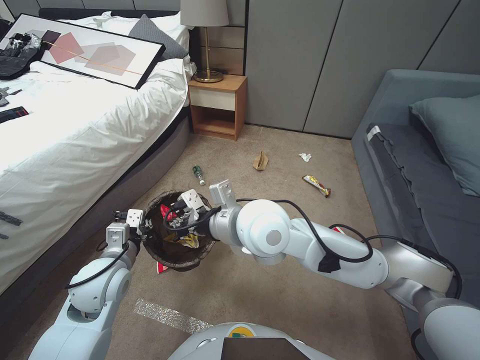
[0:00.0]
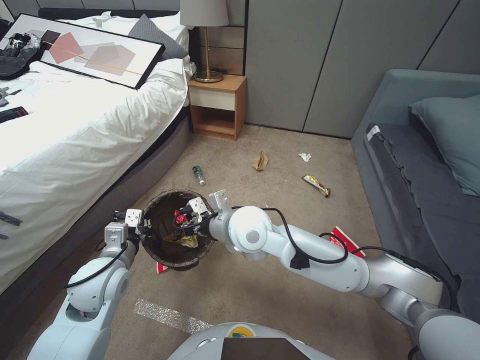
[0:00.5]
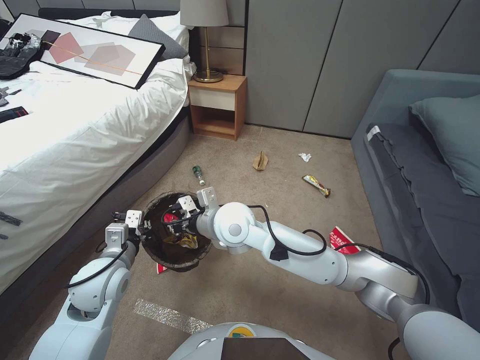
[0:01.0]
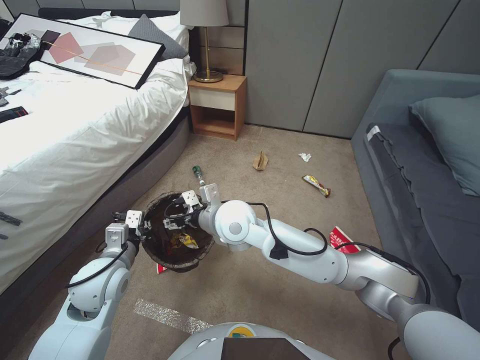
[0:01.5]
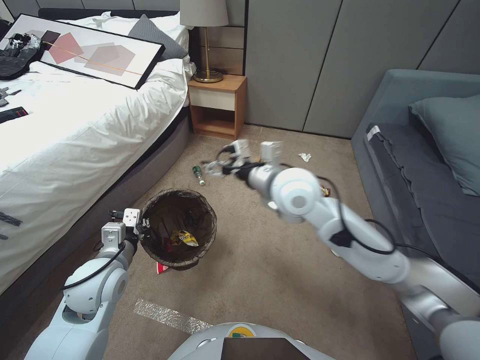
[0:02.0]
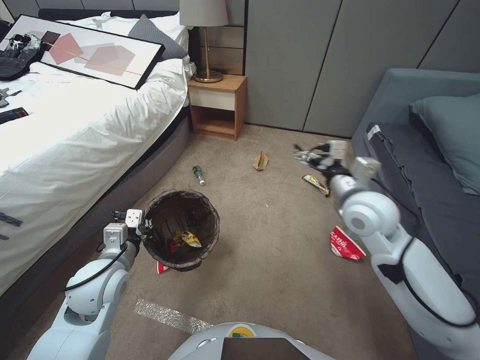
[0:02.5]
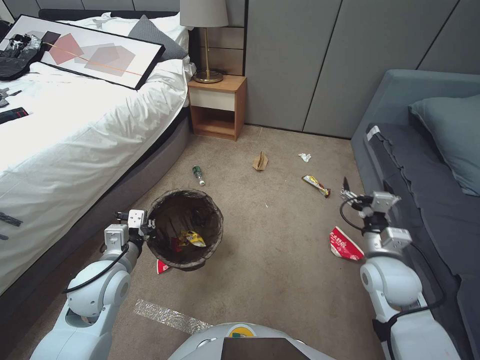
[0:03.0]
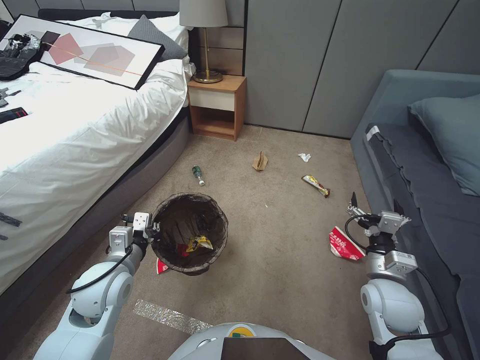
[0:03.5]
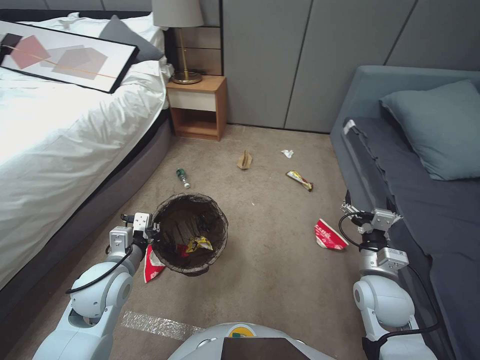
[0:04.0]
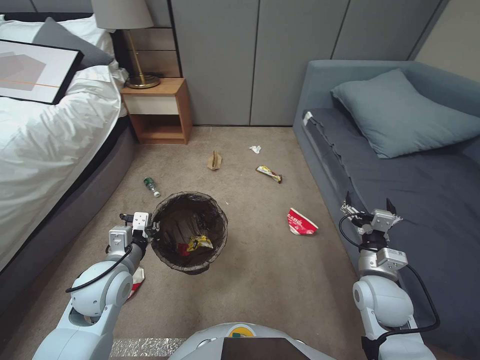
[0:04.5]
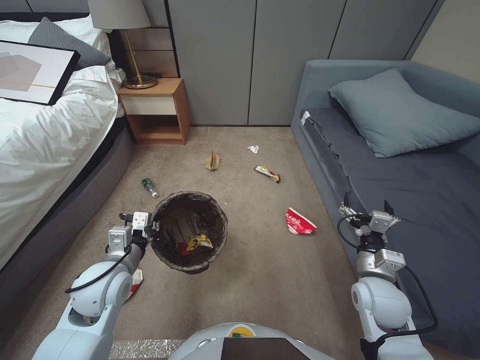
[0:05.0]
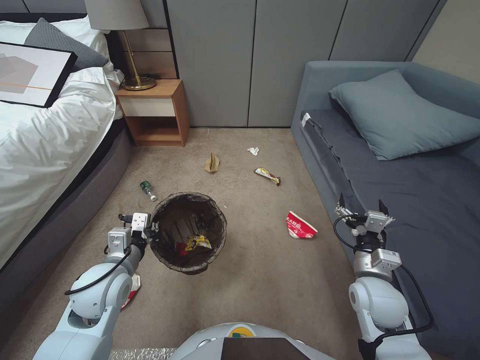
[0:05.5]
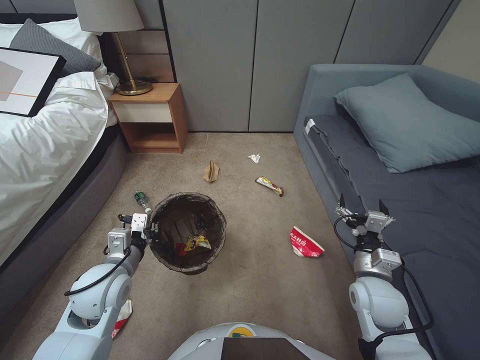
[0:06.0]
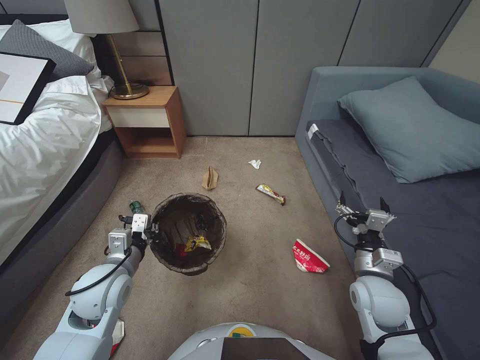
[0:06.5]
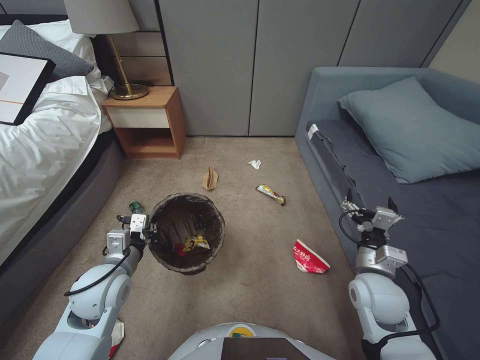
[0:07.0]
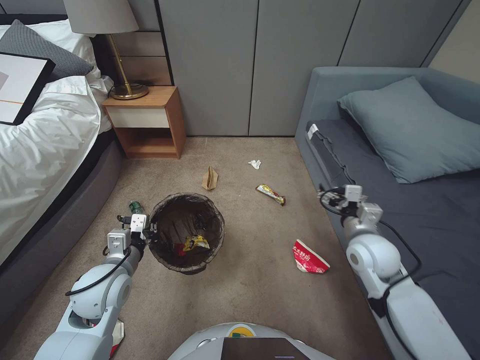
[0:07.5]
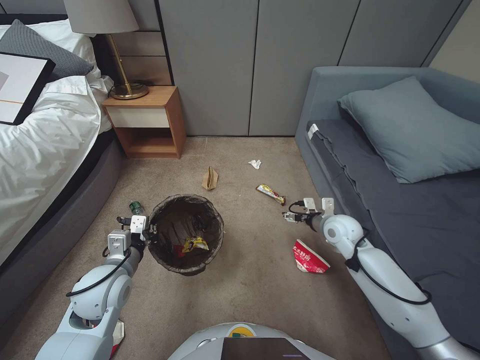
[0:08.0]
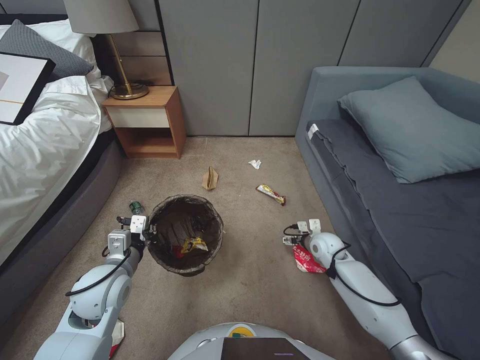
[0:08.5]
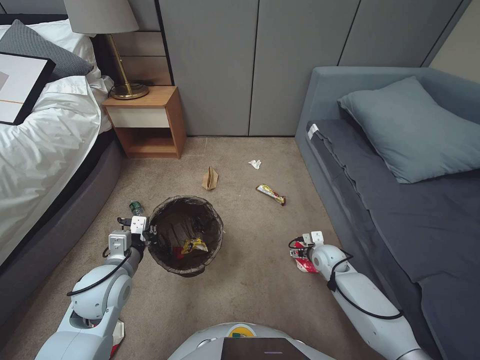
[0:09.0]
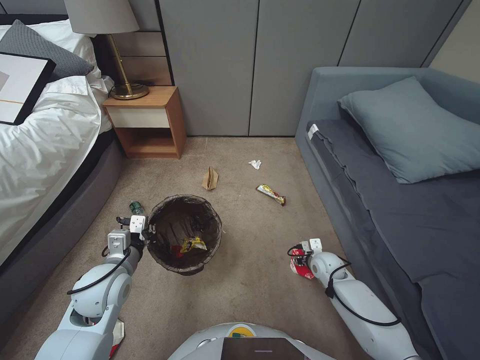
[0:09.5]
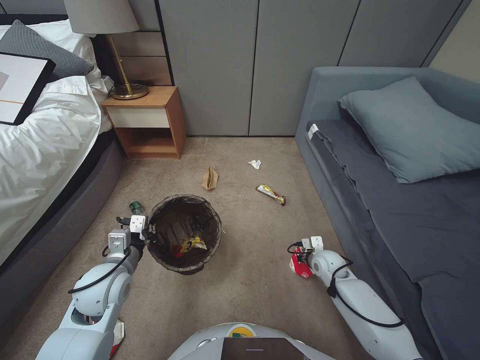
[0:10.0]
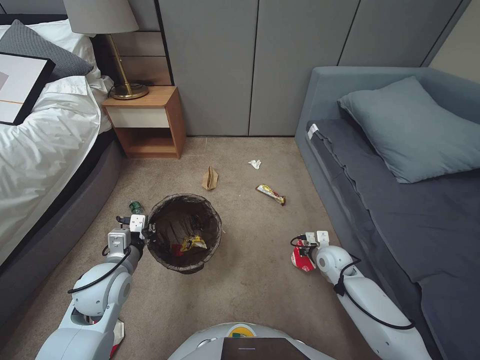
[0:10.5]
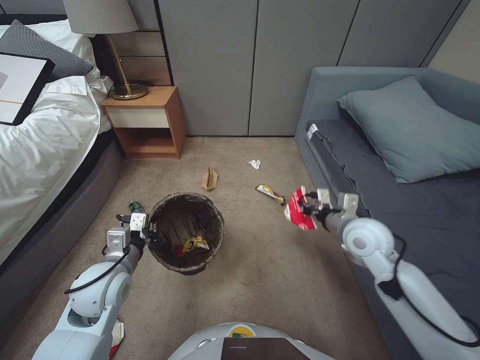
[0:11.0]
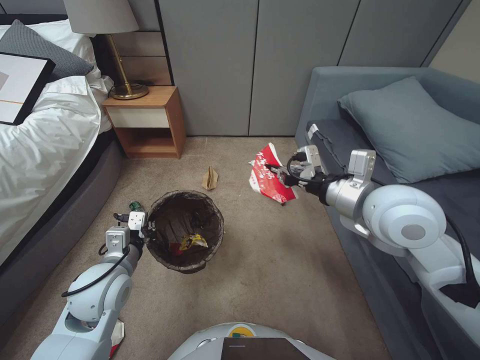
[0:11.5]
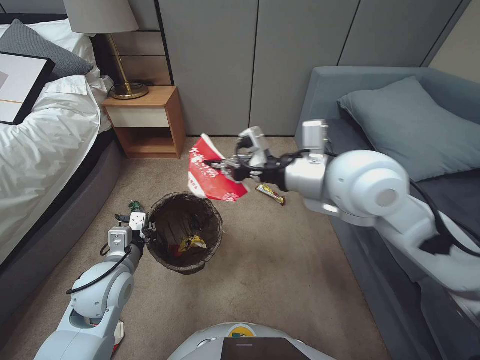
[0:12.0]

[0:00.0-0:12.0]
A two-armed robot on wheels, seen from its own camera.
Task of the whole recording: Pick up the trash bin, then pick up the garbage from the floor and place it into the trash bin.
0:00.0 to 0:02.0: The right gripper is displaced forward by some 5 cm, and opens.
0:02.0 to 0:04.0: The right gripper travels to the right, downward and backward by roughly 35 cm.
0:06.0 to 0:08.0: The right gripper is displaced forward by approximately 15 cm.
0:08.0 to 0:10.0: The right gripper travels downward by some 15 cm, and closes its fingers.
0:10.0 to 0:12.0: The right gripper heads upward, covering some 40 cm.

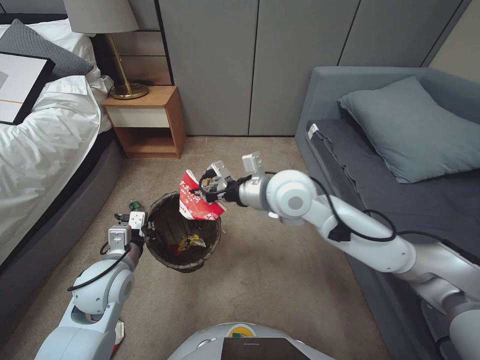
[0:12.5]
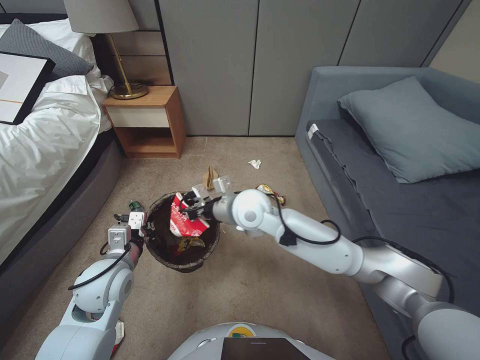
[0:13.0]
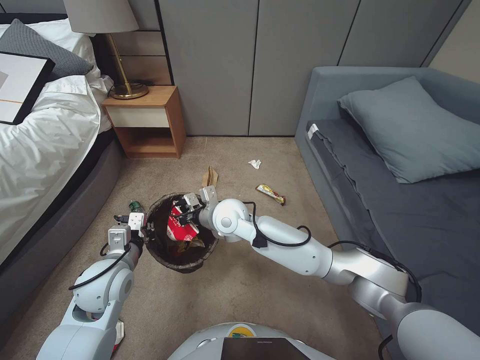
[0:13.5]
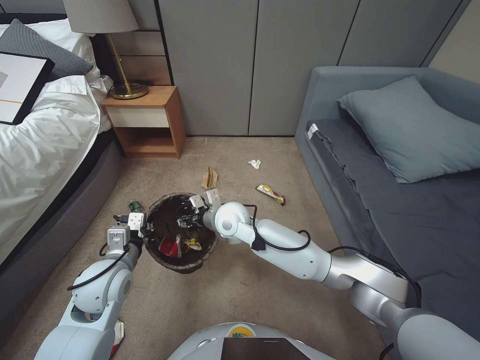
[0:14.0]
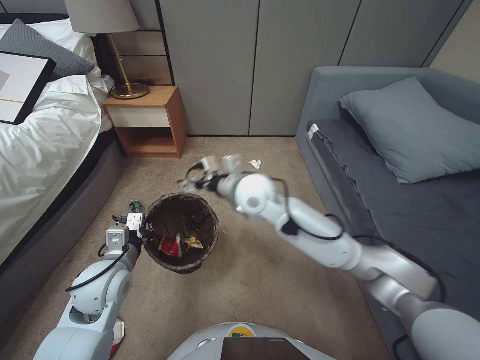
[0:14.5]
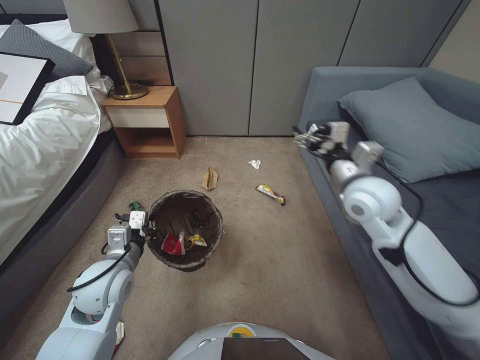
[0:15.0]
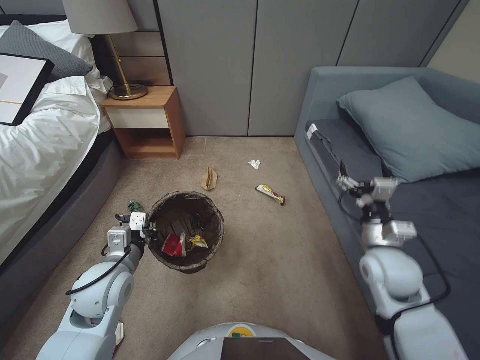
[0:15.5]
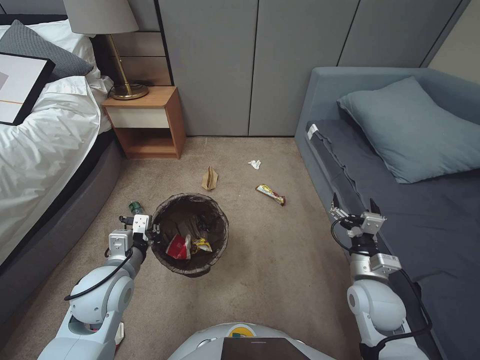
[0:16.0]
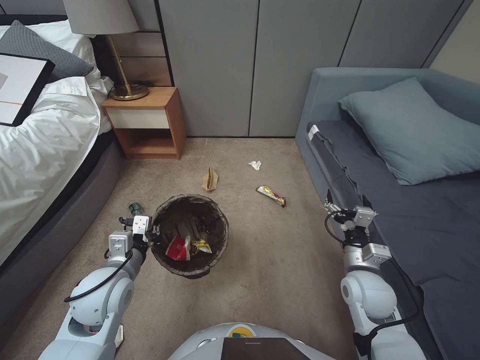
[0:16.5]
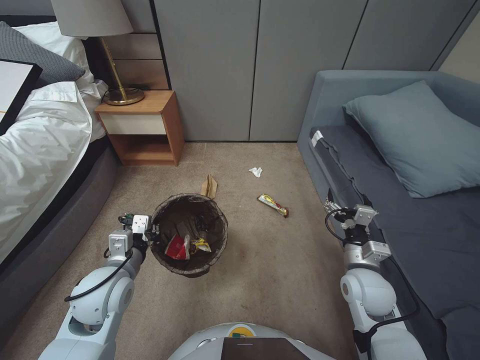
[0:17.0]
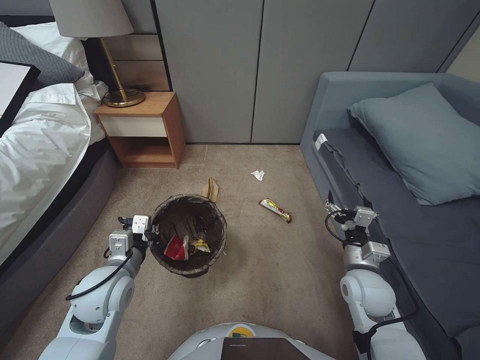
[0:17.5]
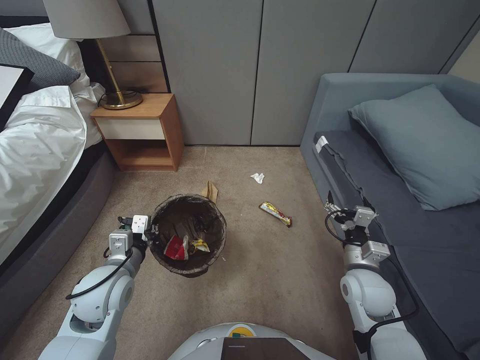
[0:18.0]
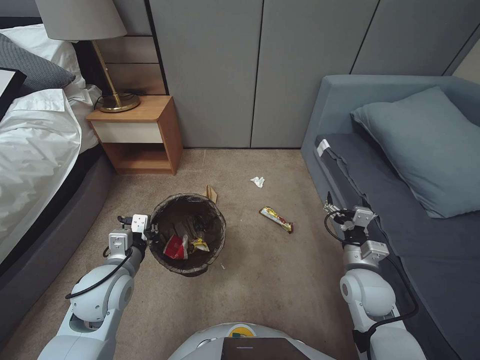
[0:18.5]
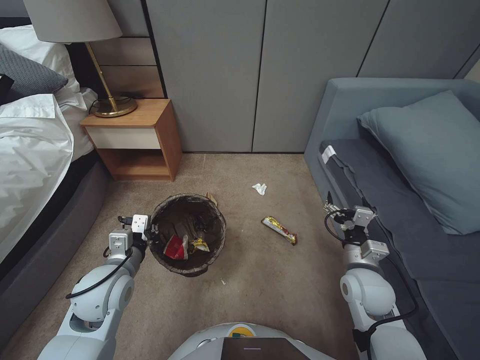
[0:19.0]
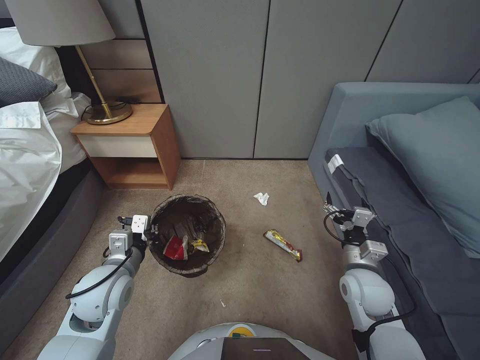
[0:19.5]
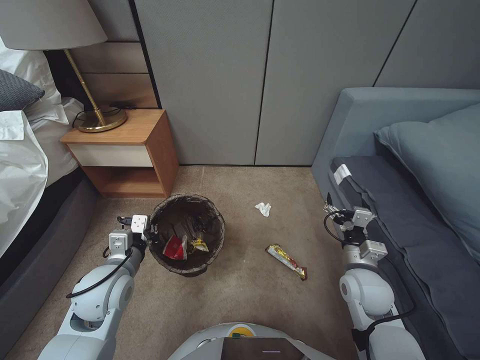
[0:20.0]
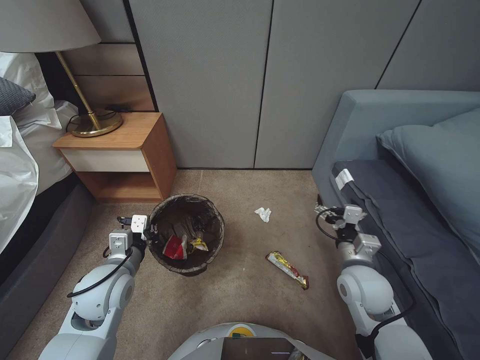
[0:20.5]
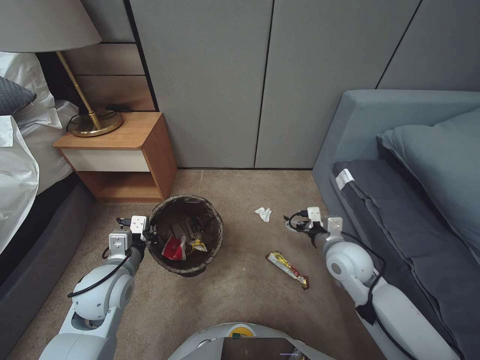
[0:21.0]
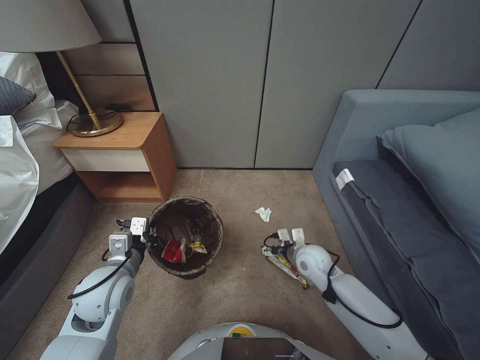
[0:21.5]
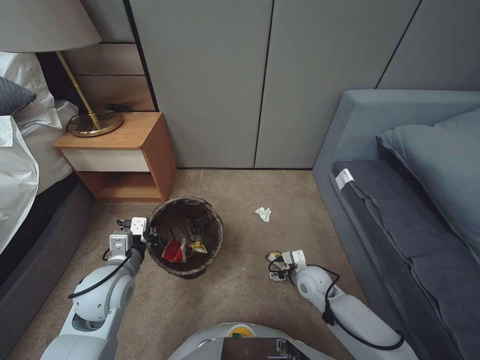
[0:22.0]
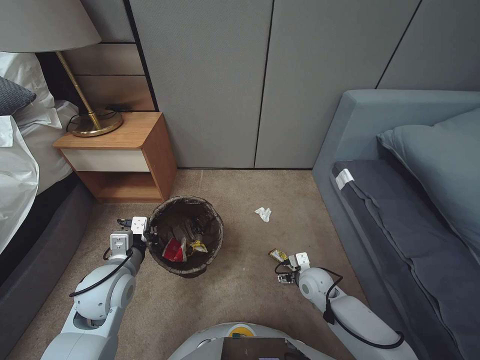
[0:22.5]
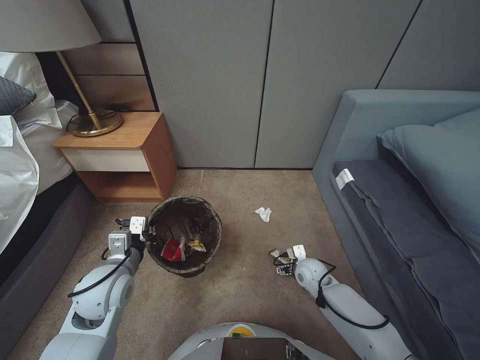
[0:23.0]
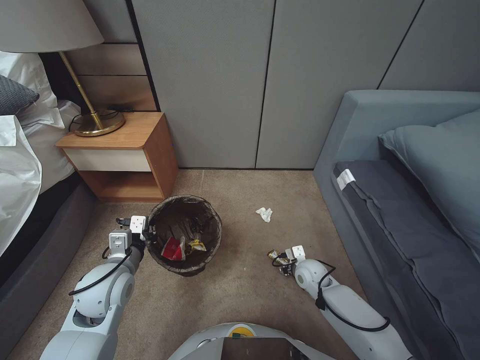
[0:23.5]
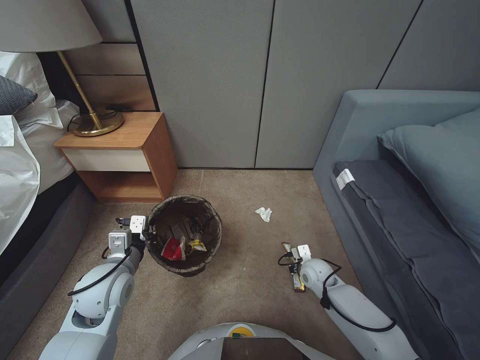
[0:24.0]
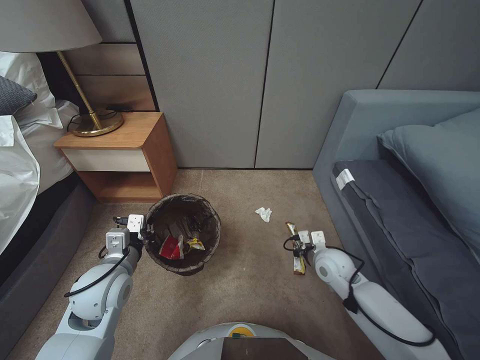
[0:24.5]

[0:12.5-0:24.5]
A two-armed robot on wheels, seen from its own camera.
Task of the whole recording: Pick up the trash bin, then pick up the garbage from the floor and place it into the trash bin.
0:12.5 to 0:14.5: The right gripper heads to the left and downward, covering some 10 cm, and opens.
0:14.5 to 0:16.5: The right gripper travels to the right, backward and downward by roughly 35 cm.
0:20.5 to 0:22.5: The right gripper goes roughly 15 cm downward.
0:22.5 to 0:24.5: The right gripper shifts roughly 5 cm upward, and closes its fingers.

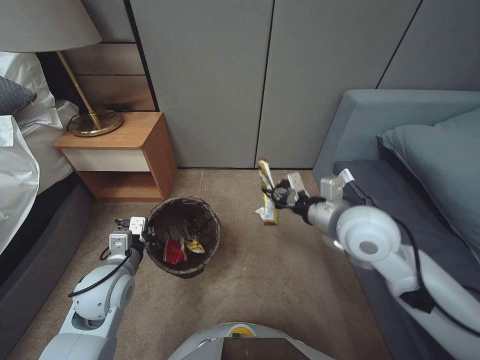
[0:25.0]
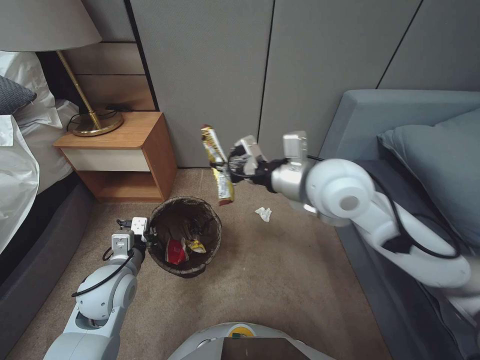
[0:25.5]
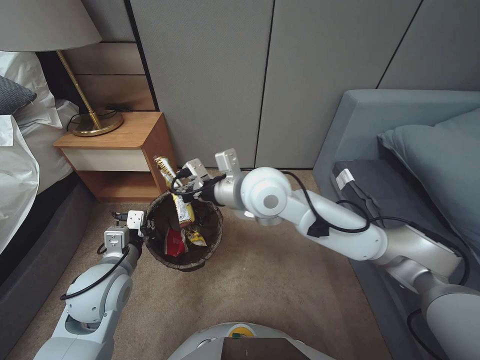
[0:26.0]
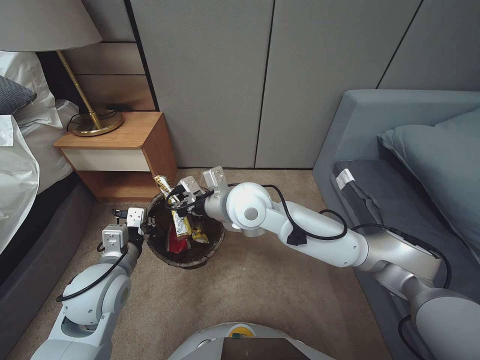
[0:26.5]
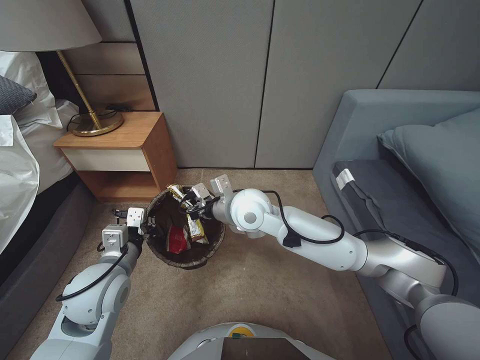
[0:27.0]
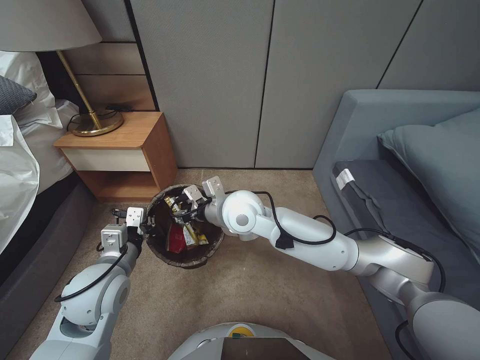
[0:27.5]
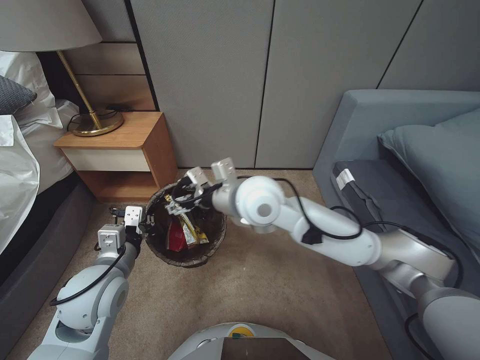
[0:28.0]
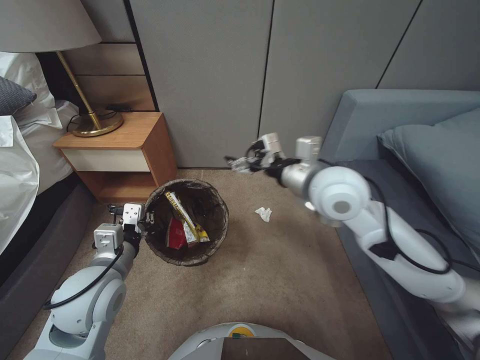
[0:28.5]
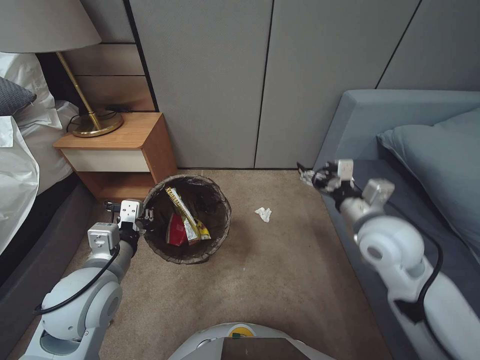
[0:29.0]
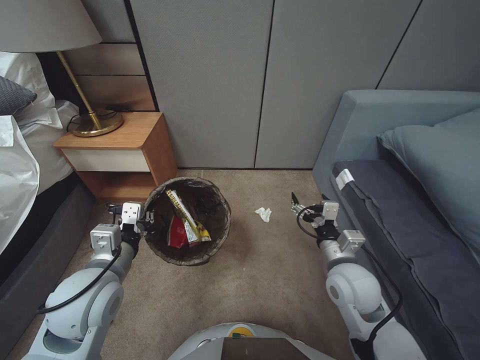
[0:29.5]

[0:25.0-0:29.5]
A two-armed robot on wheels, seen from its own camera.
Task of the whole recording: Pick up the trash bin, then pick up the garbage from the floor and place it into the trash bin.
0:25.0 to 0:27.0: The right gripper shifts approximately 20 cm to the left.
0:27.0 to 0:29.5: The right gripper shifts approximately 30 cm to the right, backward and downward, and opens.
